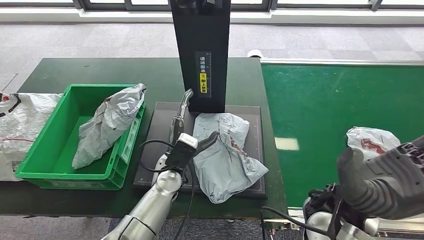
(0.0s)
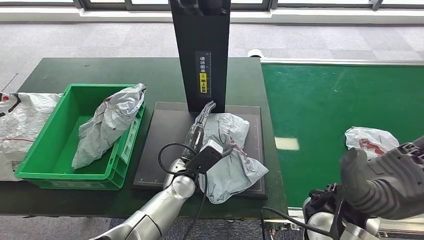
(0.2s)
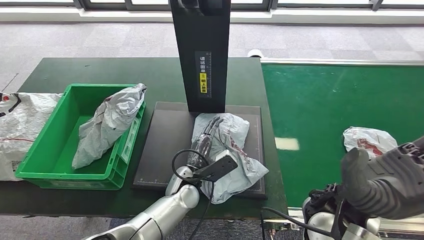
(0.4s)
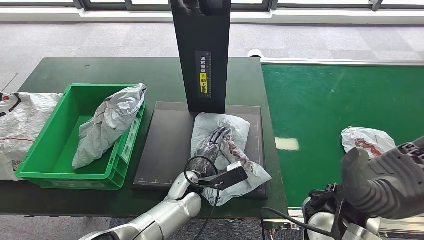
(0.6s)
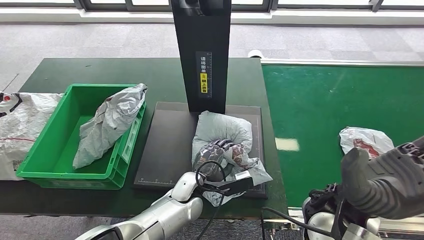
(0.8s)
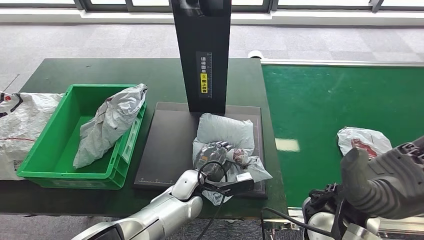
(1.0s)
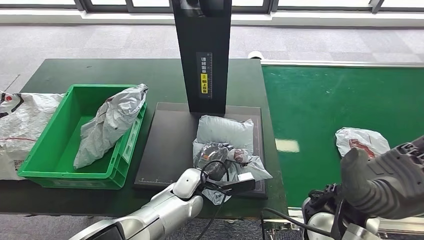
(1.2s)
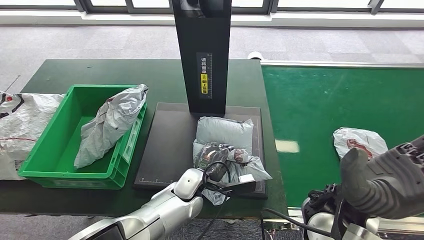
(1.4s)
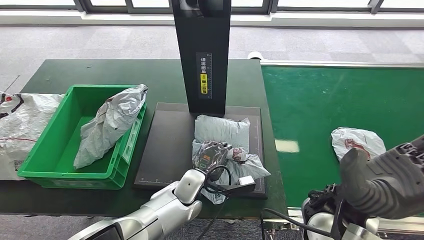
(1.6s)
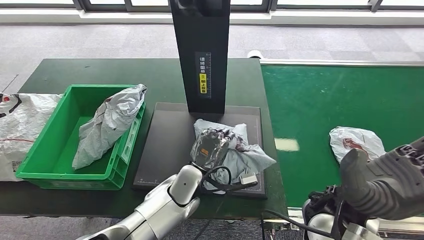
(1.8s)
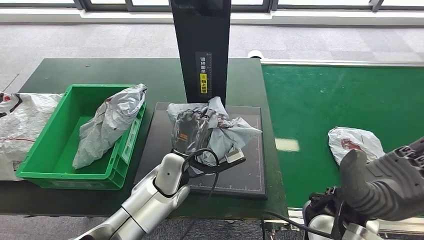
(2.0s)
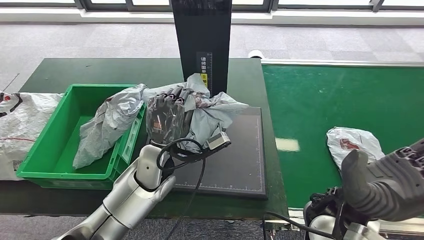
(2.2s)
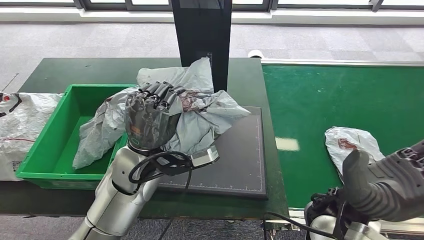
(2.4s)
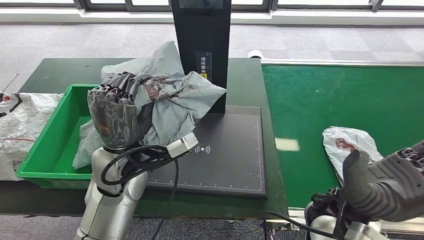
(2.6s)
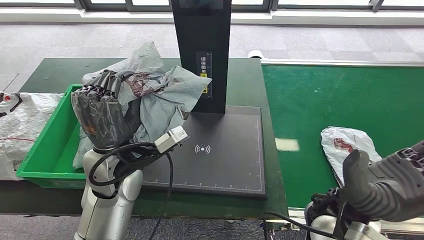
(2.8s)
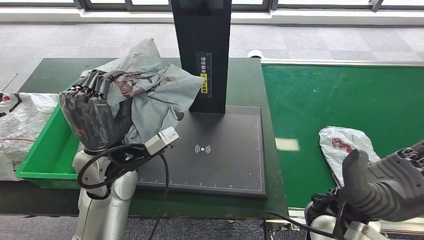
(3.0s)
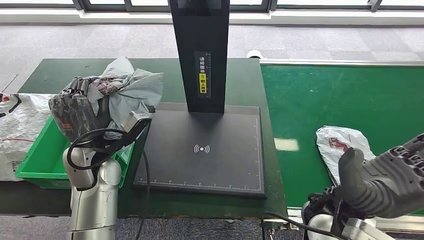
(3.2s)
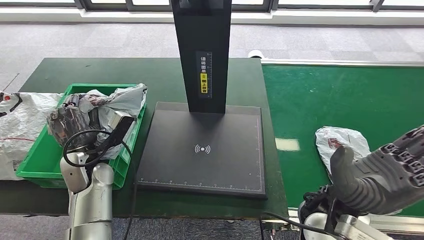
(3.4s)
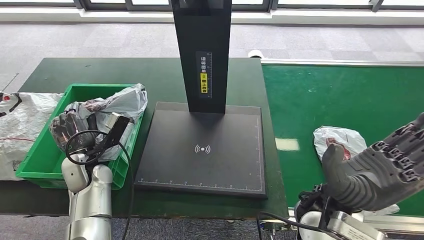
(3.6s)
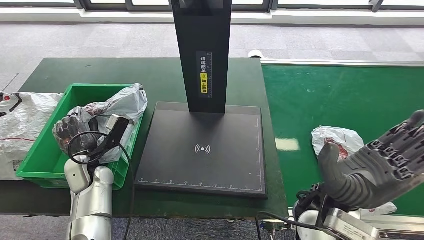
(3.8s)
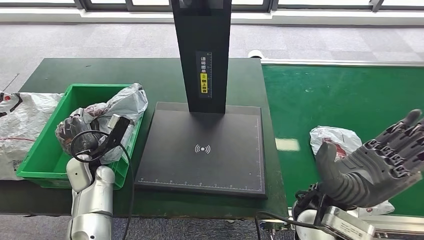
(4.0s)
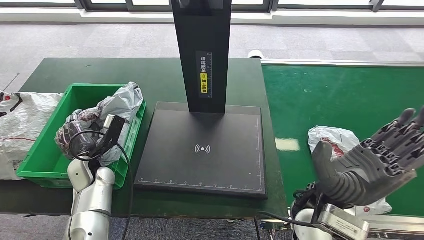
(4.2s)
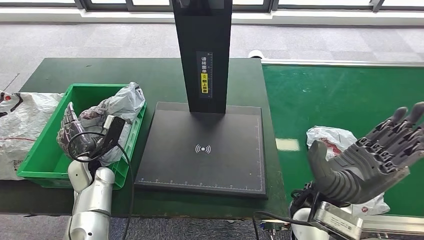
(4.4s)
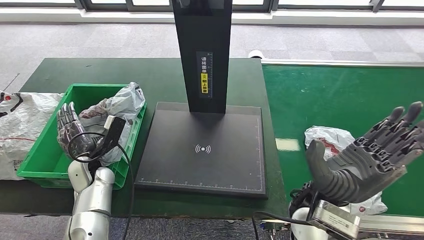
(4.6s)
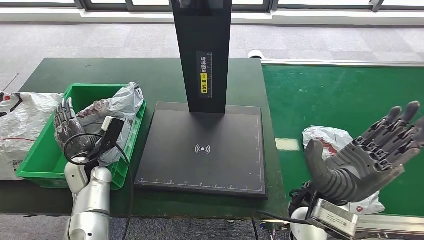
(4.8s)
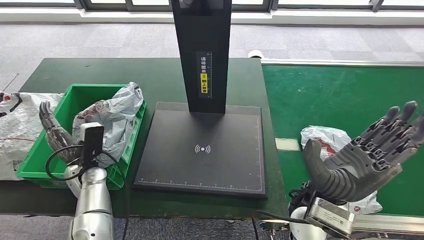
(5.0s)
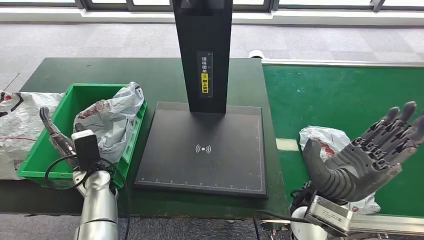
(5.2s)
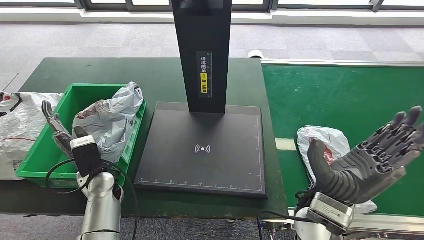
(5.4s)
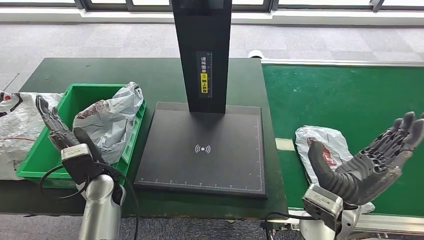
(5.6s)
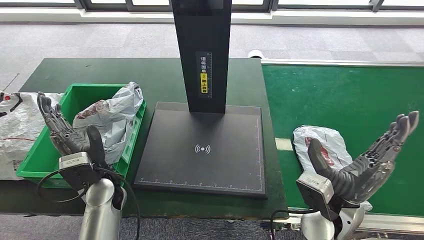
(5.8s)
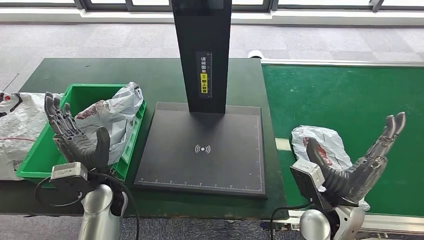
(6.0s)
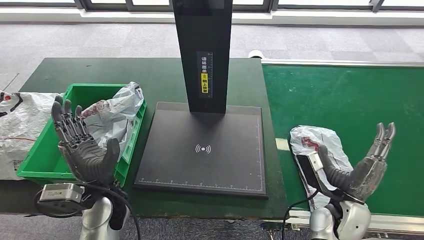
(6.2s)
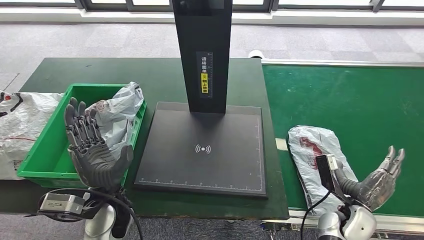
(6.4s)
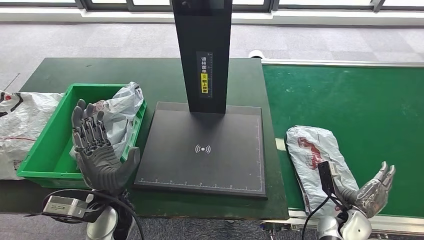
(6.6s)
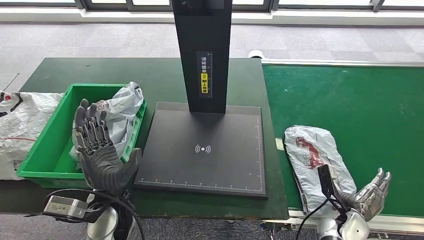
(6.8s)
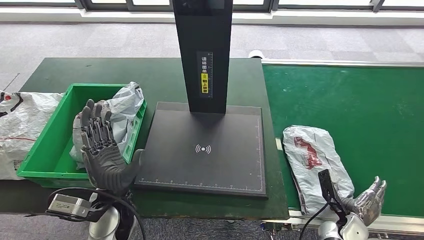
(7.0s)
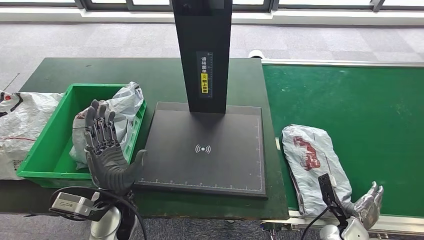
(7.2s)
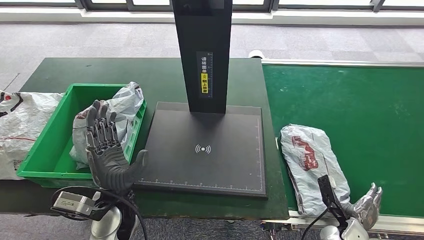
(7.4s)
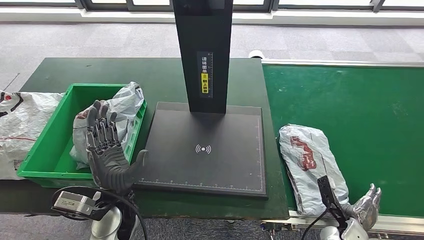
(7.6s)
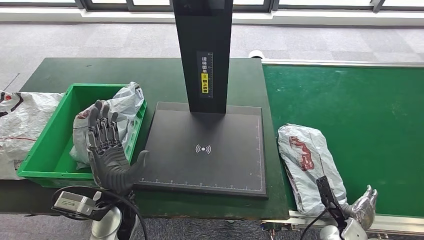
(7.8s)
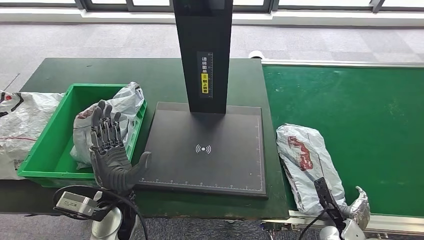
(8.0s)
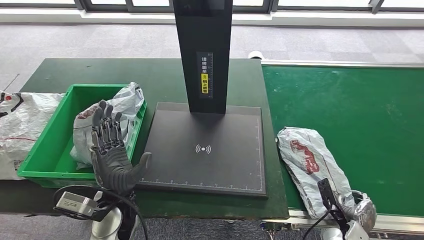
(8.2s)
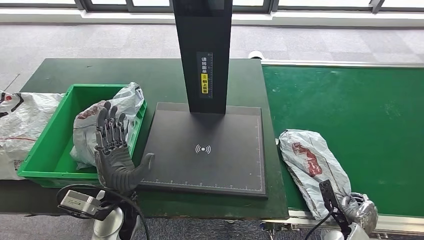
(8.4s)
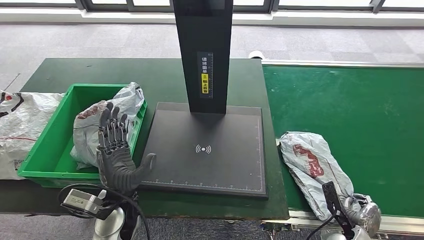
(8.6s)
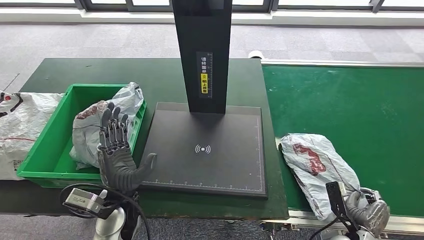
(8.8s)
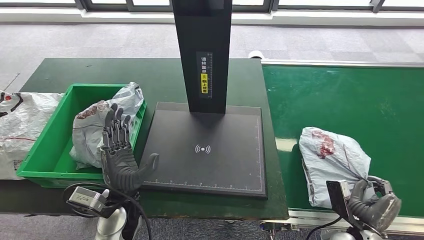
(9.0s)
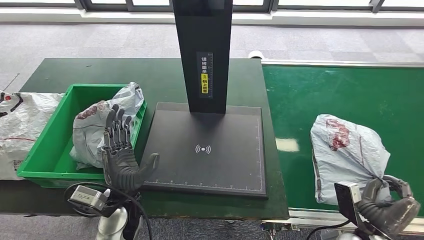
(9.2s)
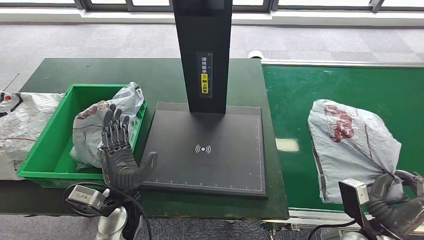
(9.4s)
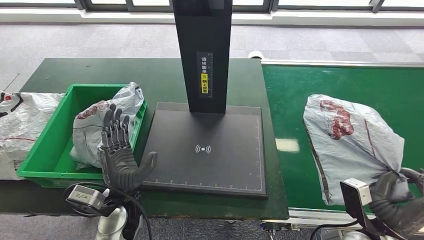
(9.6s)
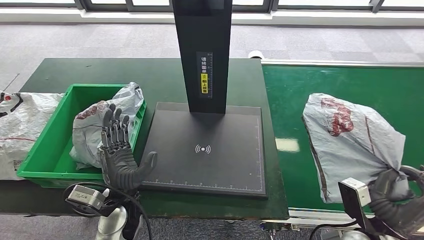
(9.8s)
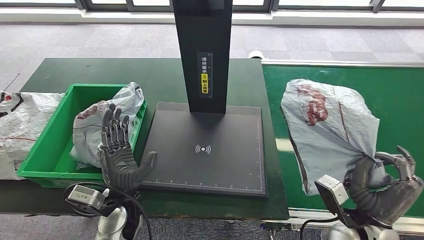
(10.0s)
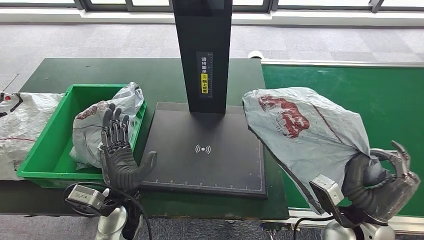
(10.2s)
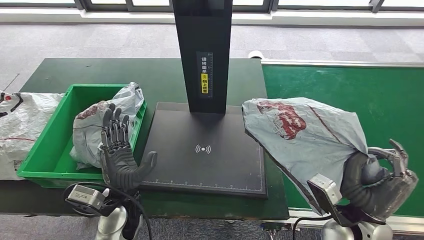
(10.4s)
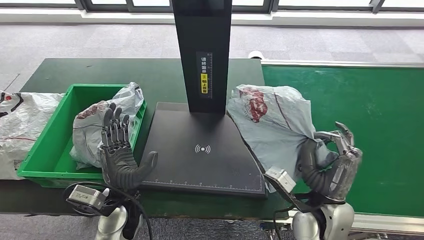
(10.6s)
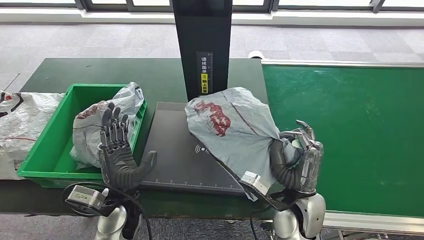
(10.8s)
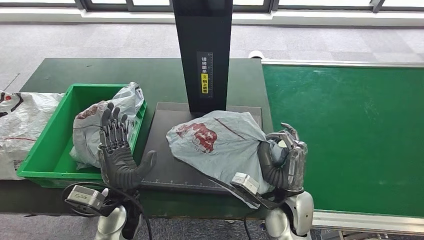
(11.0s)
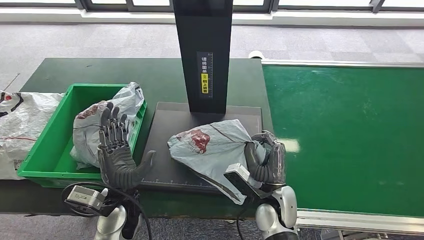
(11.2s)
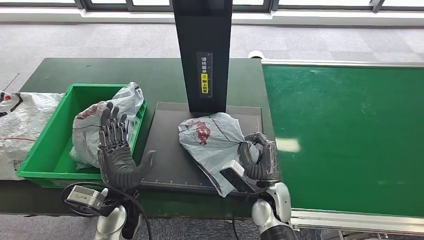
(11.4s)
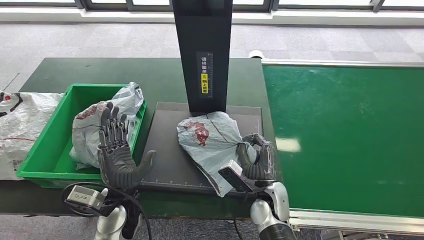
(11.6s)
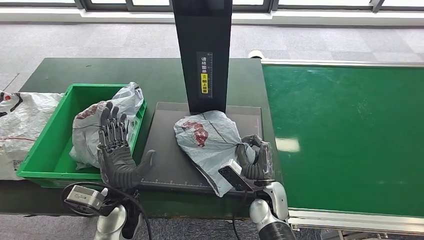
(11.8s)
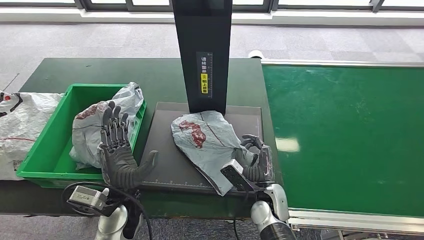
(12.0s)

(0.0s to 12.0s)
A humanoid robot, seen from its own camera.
Step, 1.0s - 2.8s: Pick up the parcel from the inbound machine.
Step, 3.0s - 5.0s: Place the parcel into the delivery box.
Step, 8.6s - 10.0s: Pick up the parcel from the conveyor belt.
4.4s - 6.0s: The right hand heads downward and to the right, covering approximately 10 cm. The left hand moves to the right, upward and backward, some 10 cm.
6.0s - 7.6s: The right hand travels downward and to the right by approximately 20 cm. The left hand shifts by some 5 cm.
7.6s - 9.0s: The right hand changes place by about 5 cm.
9.0s - 10.4s: The right hand shifts approximately 15 cm upward and to the left.
10.4s - 12.0s: The right hand travels to the left and downward by about 20 cm.

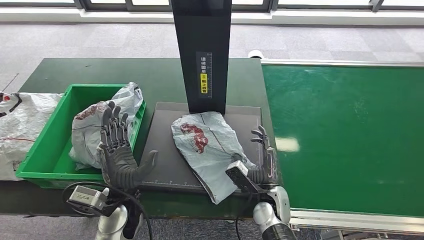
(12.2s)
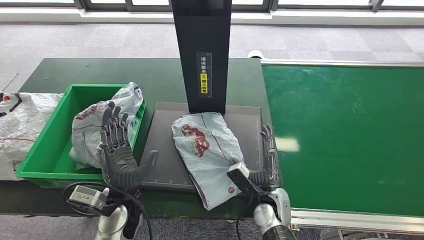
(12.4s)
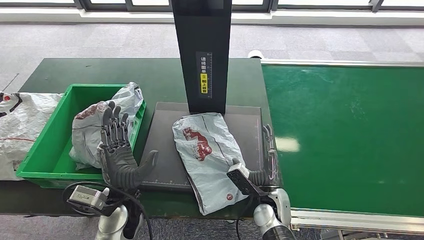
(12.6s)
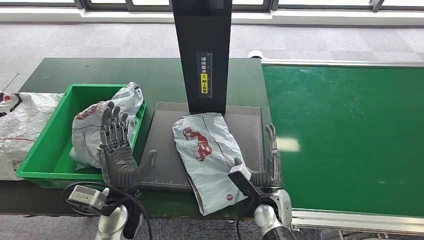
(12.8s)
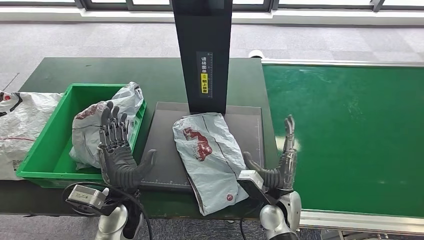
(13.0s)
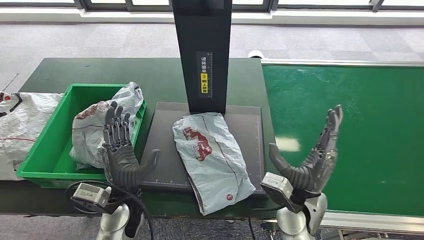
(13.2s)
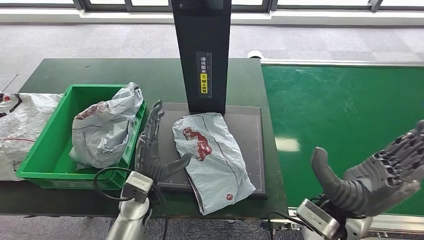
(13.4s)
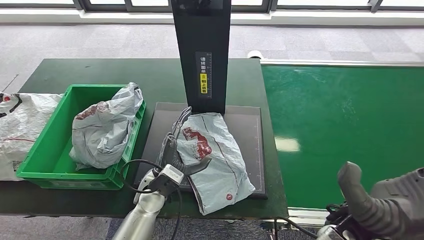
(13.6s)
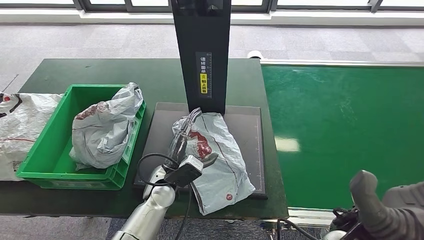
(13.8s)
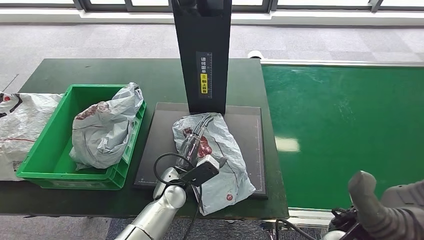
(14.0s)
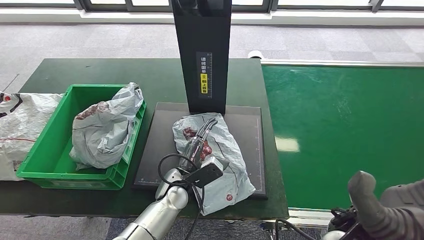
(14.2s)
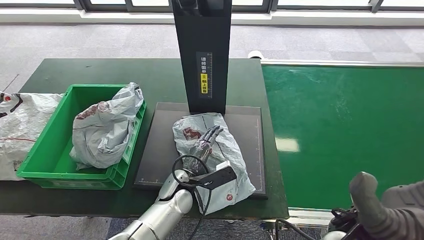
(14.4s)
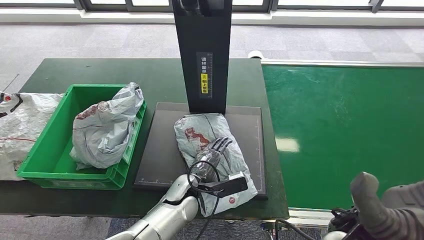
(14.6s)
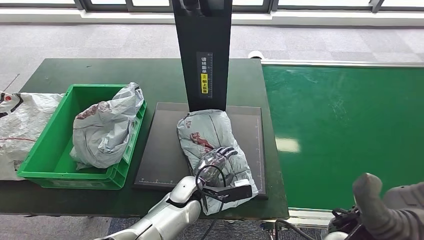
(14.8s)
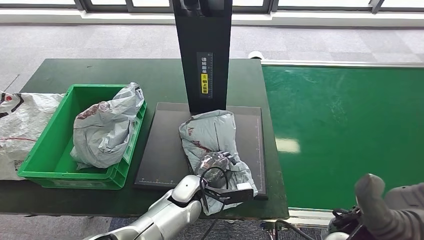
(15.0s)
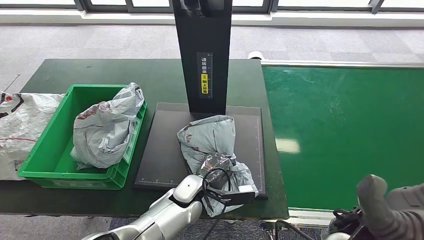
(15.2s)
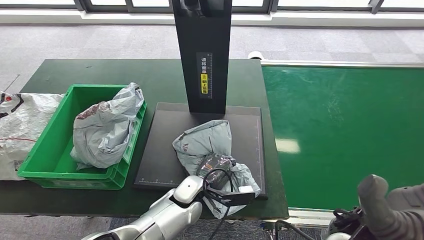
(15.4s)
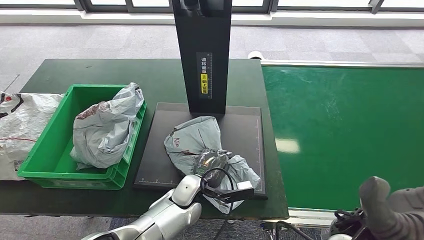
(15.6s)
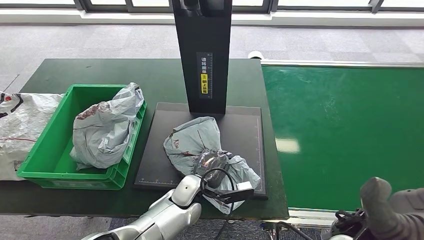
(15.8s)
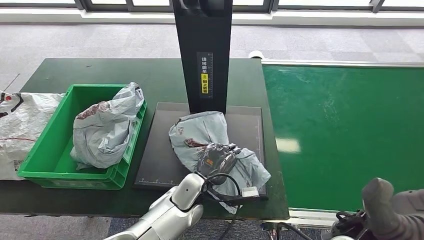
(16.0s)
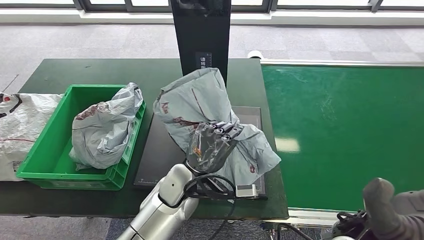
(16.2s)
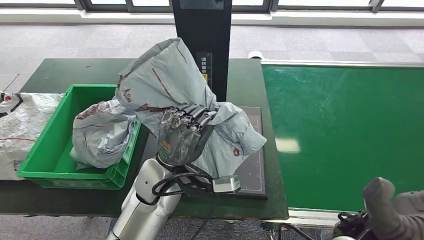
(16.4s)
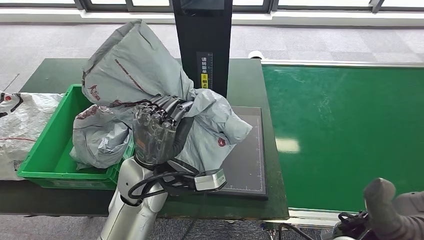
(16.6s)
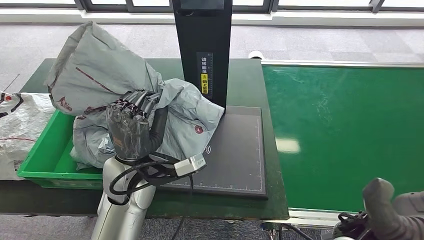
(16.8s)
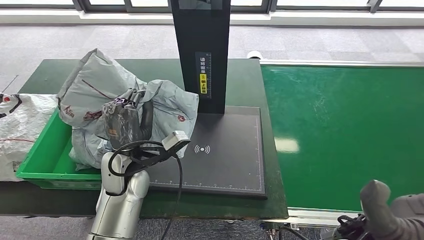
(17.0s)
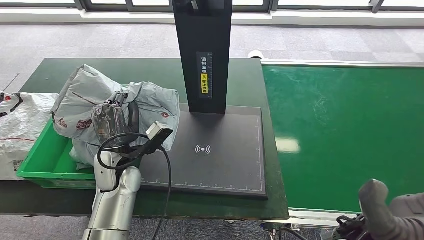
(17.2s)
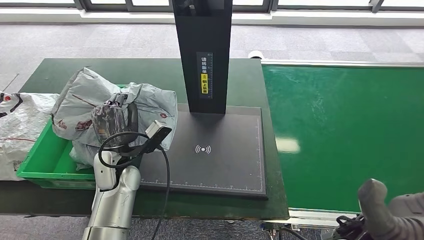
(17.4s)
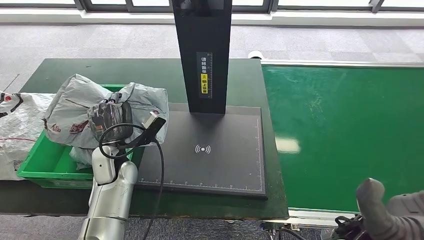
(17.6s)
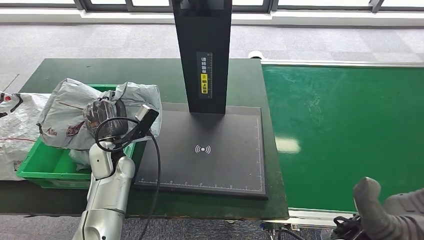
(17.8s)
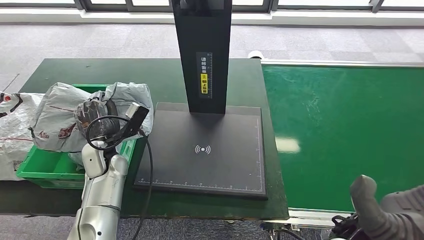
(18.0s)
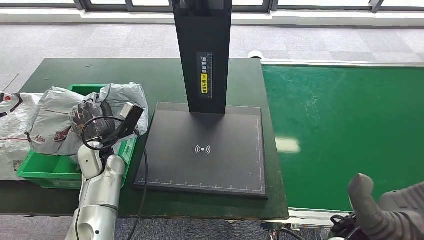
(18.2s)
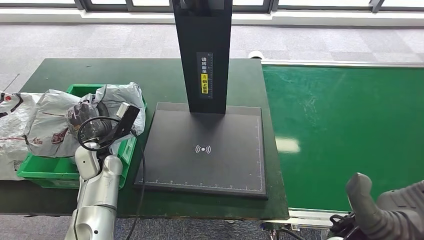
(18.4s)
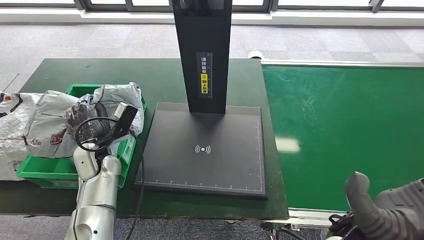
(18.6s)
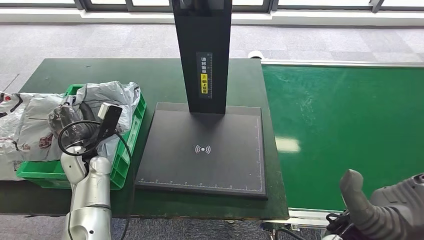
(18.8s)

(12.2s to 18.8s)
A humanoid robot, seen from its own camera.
Step, 13.6s - 16.6s: Pick up the parcel from the inbound machine.
12.2s - 13.8s: The right hand travels upward and to the right by roughly 25 cm, while the left hand shifts approximately 10 cm to the right and forward.
13.8s - 15.4s: The left hand shifts roughly 5 cm to the right.
17.2s - 18.8s: The left hand shifts approximately 10 cm to the left.
